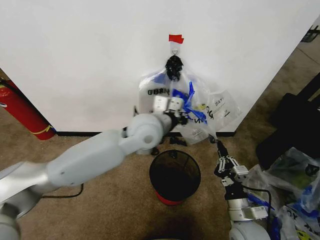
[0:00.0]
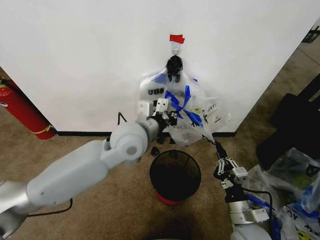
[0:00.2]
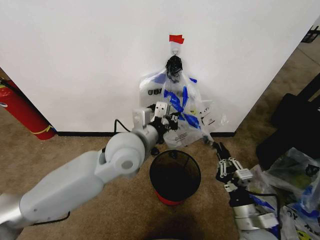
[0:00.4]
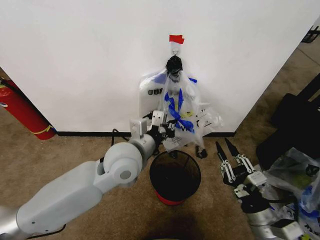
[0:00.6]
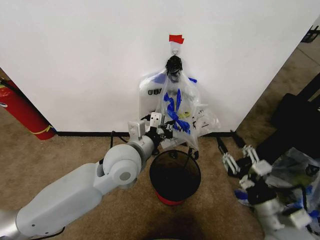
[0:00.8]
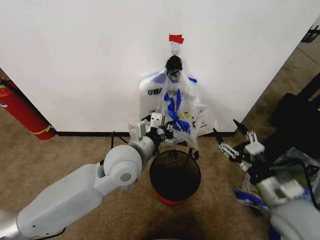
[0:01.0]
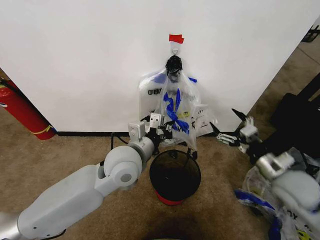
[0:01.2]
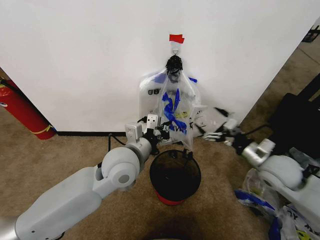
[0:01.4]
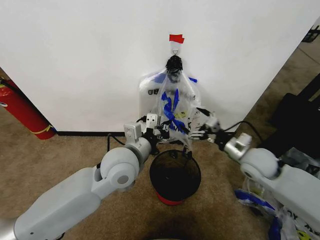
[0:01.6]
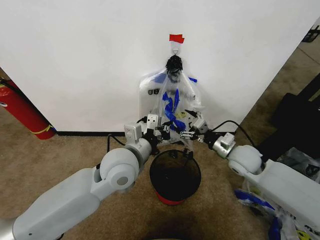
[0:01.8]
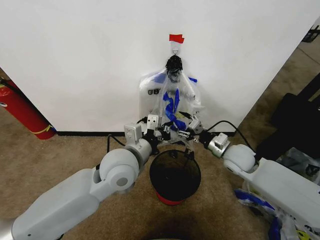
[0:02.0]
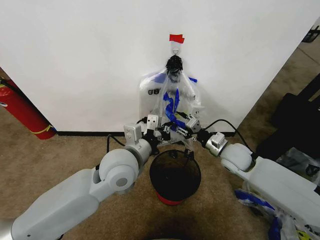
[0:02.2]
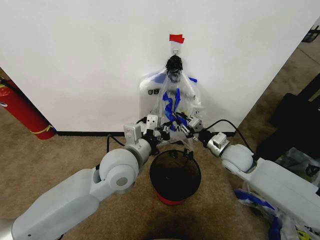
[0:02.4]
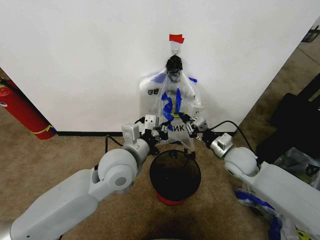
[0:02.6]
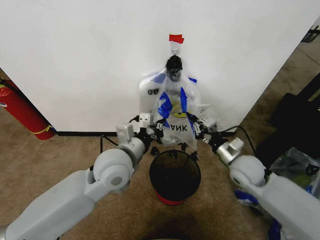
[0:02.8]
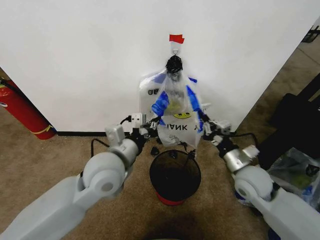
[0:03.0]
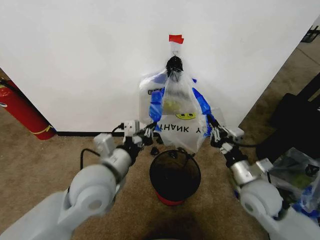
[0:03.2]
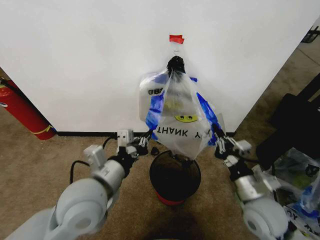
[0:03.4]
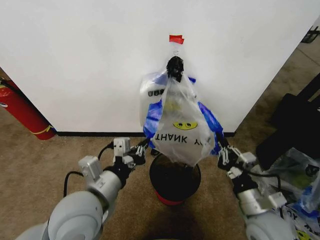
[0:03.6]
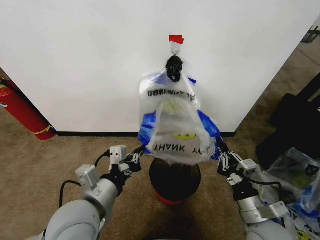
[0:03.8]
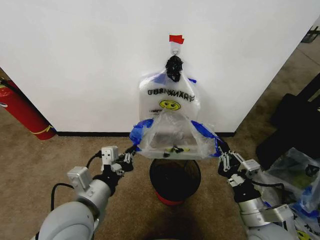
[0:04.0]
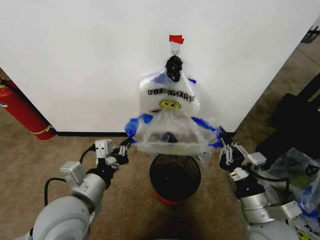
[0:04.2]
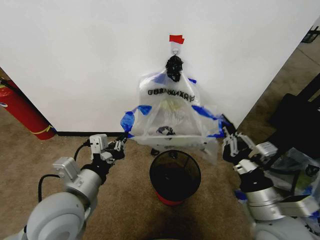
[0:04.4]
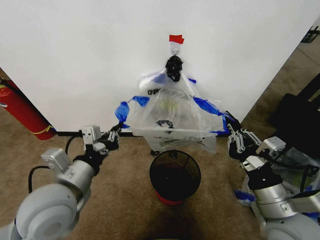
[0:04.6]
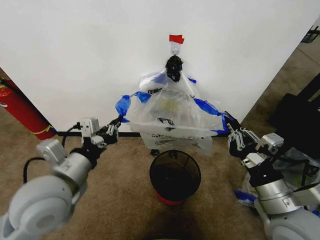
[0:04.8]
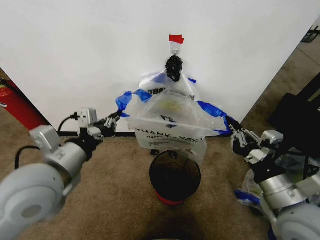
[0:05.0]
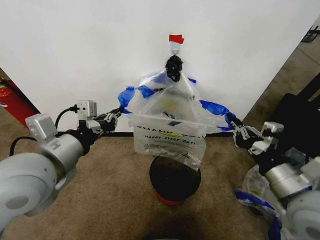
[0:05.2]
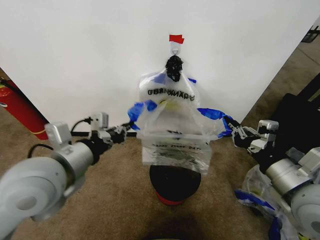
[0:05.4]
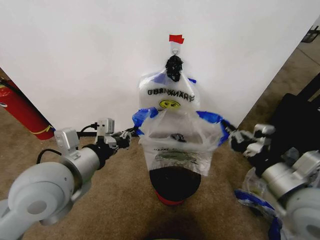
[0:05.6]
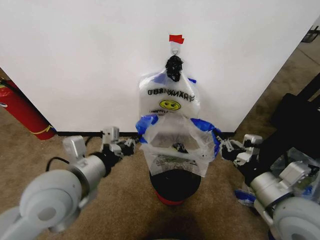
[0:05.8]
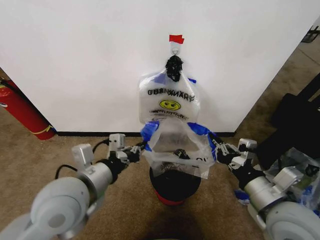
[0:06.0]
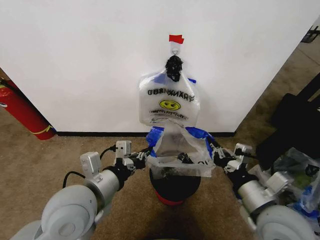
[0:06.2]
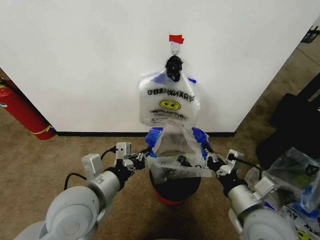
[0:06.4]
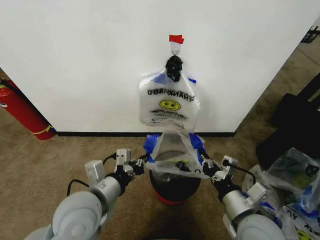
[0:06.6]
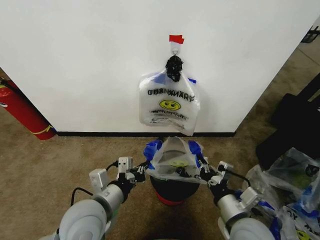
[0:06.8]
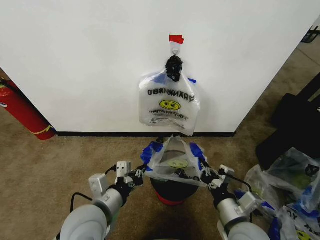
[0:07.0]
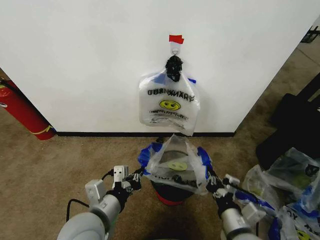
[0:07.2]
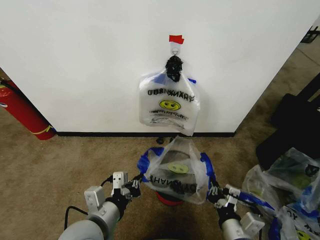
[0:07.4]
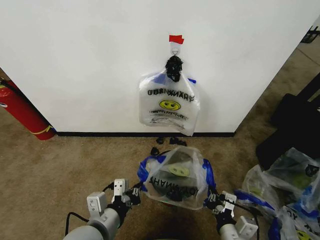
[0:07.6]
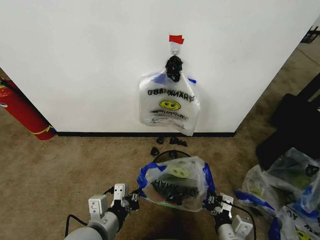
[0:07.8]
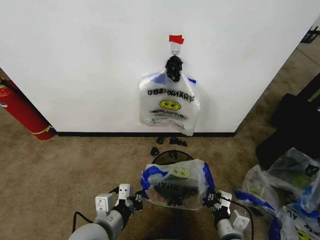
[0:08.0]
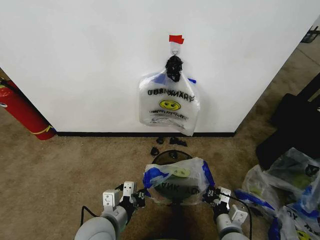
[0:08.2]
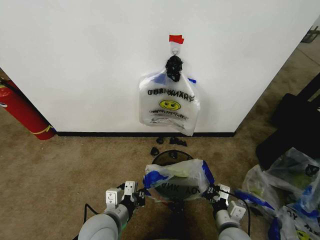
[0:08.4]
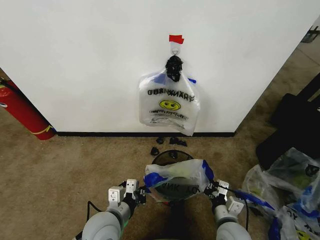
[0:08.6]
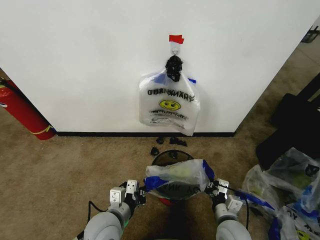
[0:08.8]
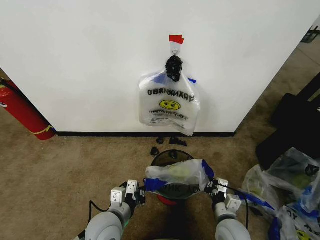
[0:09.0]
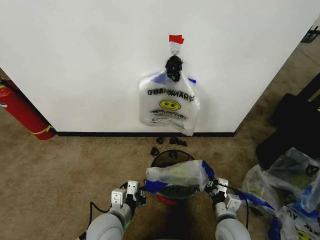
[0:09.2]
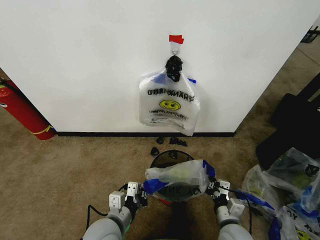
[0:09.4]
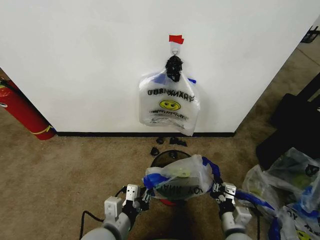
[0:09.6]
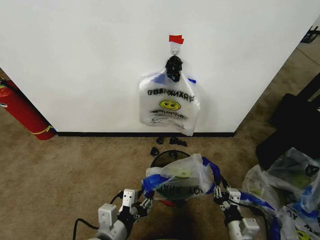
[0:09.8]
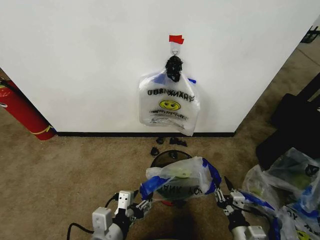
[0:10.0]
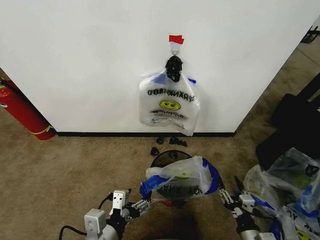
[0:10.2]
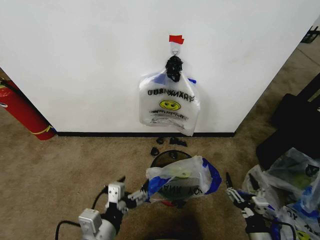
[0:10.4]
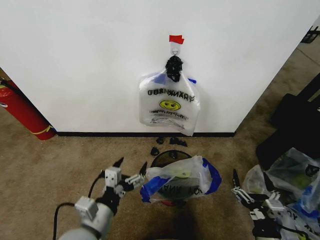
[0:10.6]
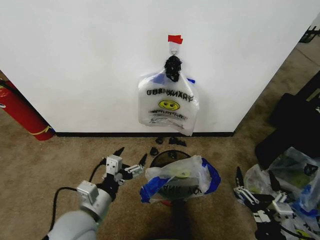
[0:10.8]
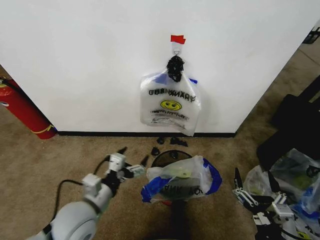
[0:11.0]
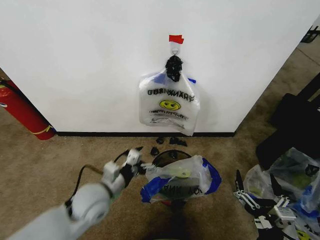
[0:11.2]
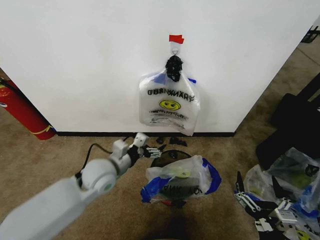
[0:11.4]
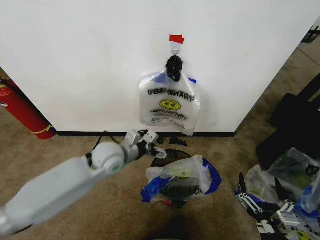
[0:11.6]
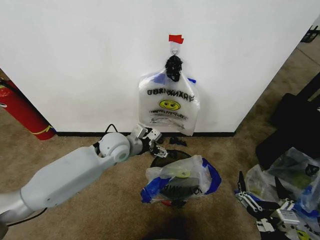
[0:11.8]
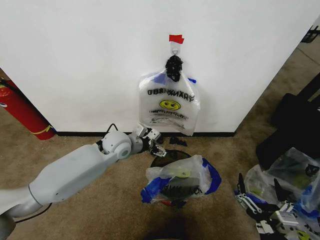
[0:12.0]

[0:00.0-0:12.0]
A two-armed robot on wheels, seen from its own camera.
Task of the whole recording: Pick up the garbage bag from the wall and place it over the trash bin.
0:00.0 to 0:01.6: The left gripper goes some 10 cm backward and downward. The right gripper moves forward and upward, about 20 cm, and opens its fingers.
0:01.6 to 0:03.0: The right gripper goes approximately 5 cm backward, and closes.
0:03.0 to 0:04.4: The left gripper shifts some 10 cm backward and to the left. The right gripper is displaced backward by about 15 cm.
0:04.4 to 0:06.0: The left gripper moves approximately 10 cm upward and comes back.
0:06.0 to 0:07.6: The left gripper shifts approximately 10 cm downward and backward, while the right gripper moves downward, some 15 cm.
0:07.6 to 0:09.0: The left gripper shifts about 10 cm downward and forward. Meanwhile the right gripper shifts some 10 cm forward and downward.
0:09.0 to 0:10.4: The left gripper shifts some 10 cm backward and upward, and opens. The right gripper travels backward and to the right by approximately 10 cm, and opens up.
0:10.4 to 0:12.0: The left gripper heads forward, covering about 35 cm. The right gripper goes some 10 cm upward and backward.

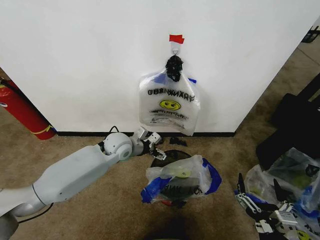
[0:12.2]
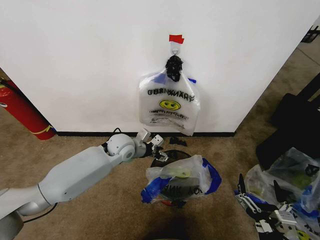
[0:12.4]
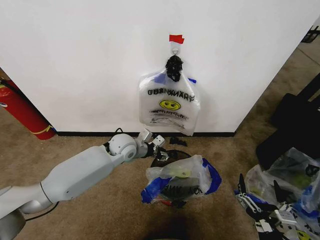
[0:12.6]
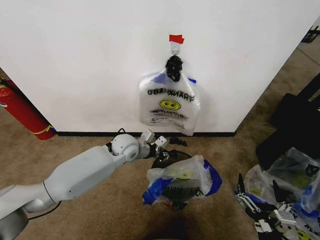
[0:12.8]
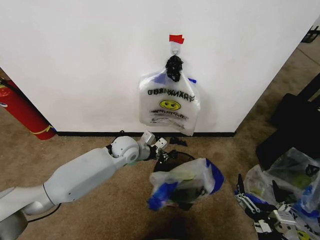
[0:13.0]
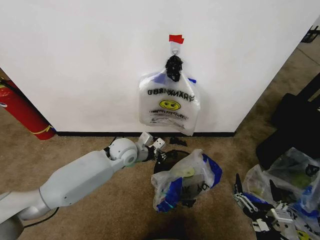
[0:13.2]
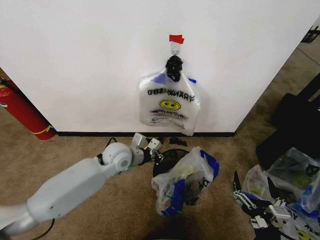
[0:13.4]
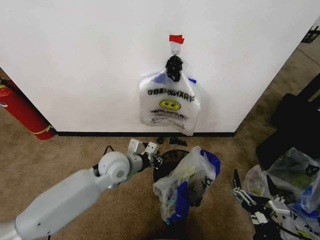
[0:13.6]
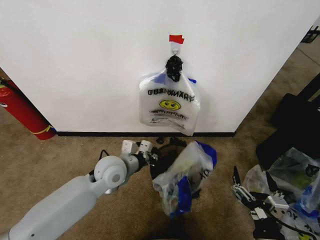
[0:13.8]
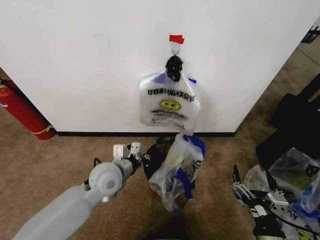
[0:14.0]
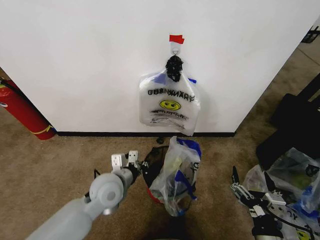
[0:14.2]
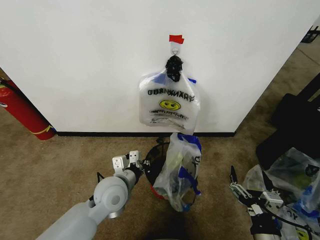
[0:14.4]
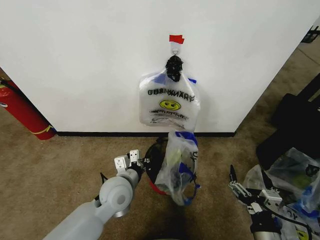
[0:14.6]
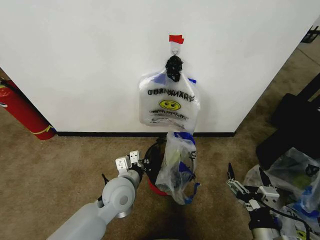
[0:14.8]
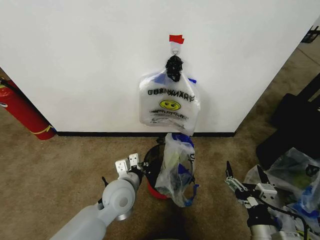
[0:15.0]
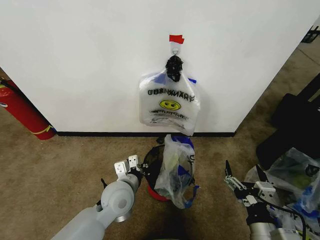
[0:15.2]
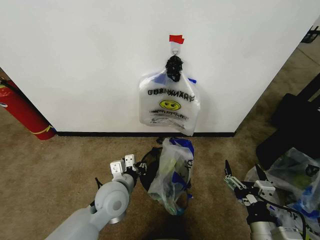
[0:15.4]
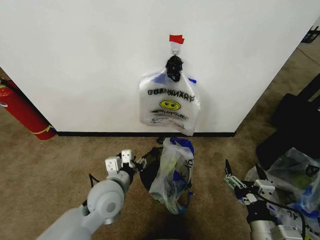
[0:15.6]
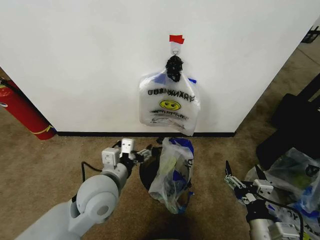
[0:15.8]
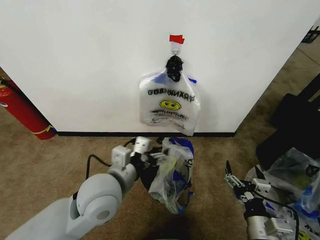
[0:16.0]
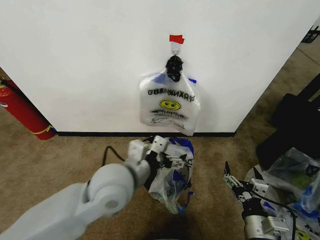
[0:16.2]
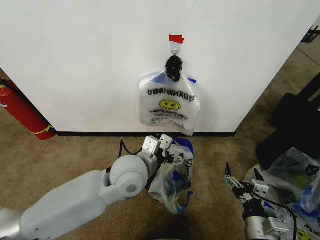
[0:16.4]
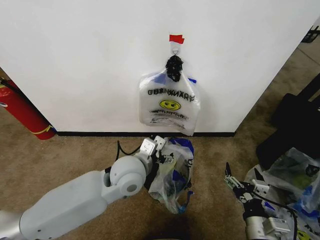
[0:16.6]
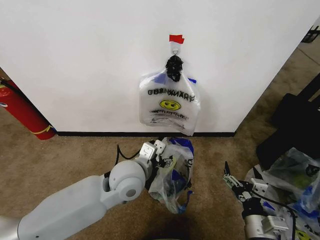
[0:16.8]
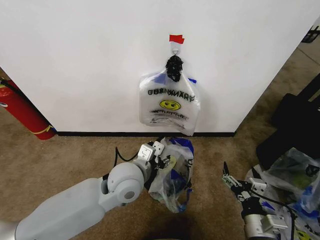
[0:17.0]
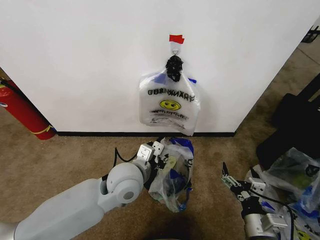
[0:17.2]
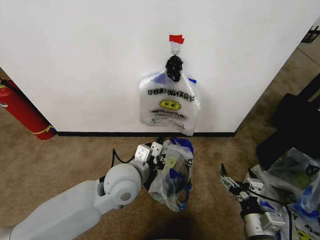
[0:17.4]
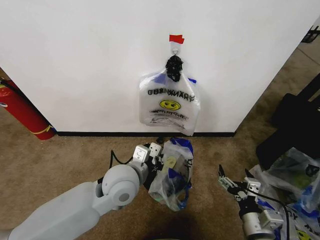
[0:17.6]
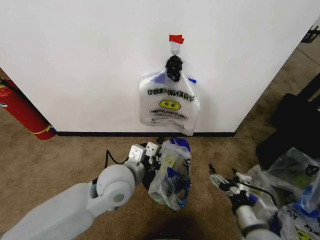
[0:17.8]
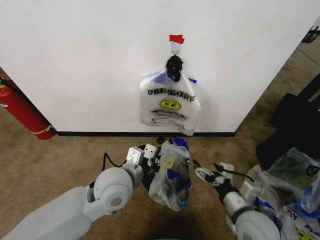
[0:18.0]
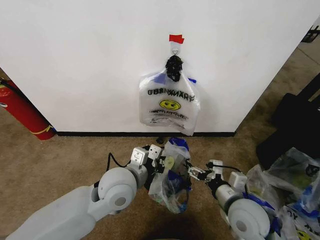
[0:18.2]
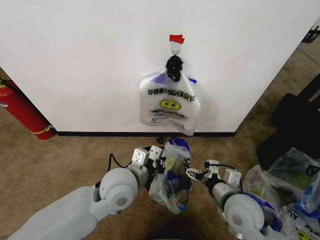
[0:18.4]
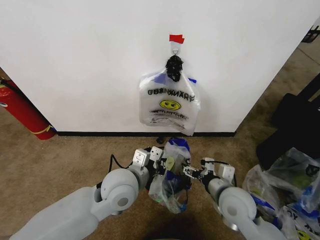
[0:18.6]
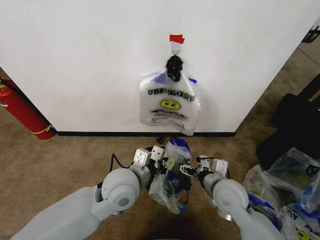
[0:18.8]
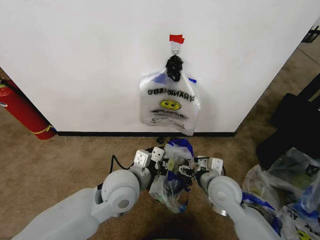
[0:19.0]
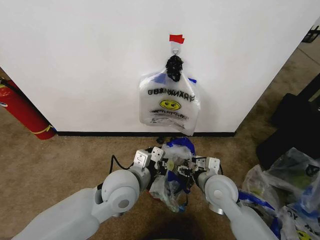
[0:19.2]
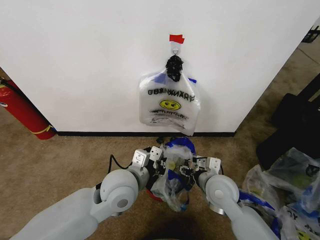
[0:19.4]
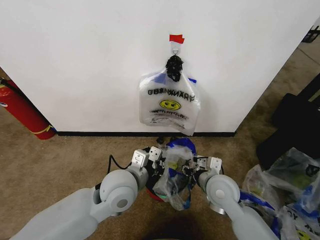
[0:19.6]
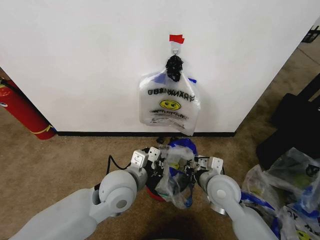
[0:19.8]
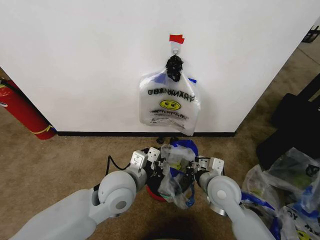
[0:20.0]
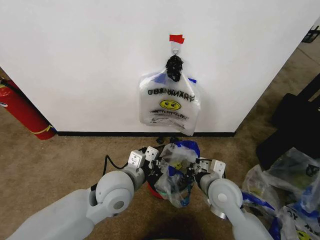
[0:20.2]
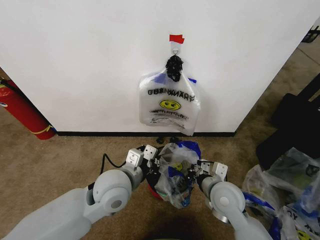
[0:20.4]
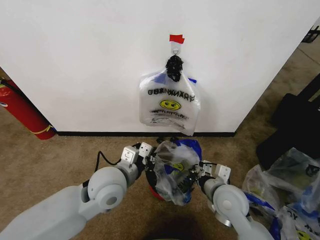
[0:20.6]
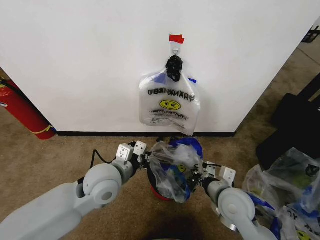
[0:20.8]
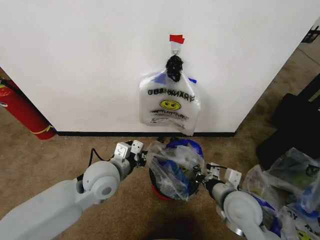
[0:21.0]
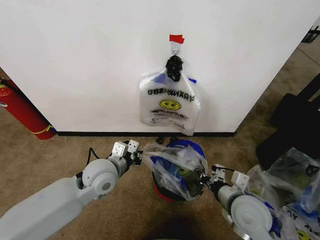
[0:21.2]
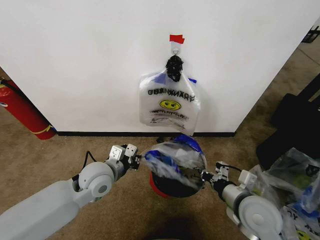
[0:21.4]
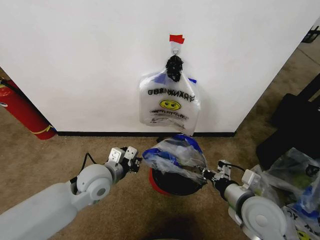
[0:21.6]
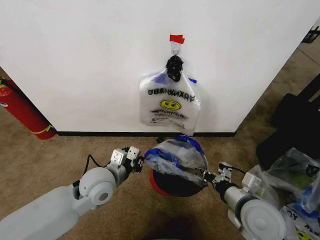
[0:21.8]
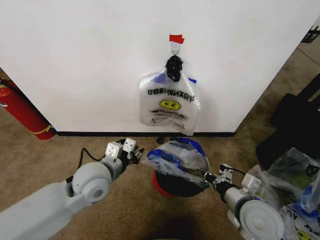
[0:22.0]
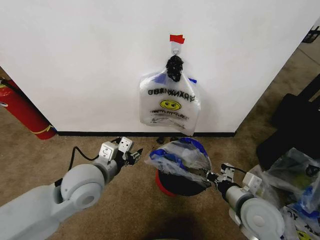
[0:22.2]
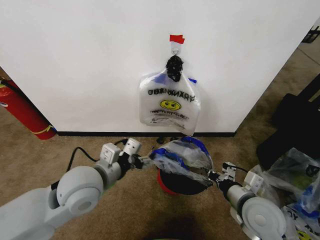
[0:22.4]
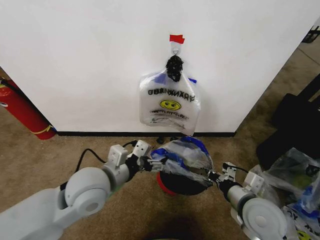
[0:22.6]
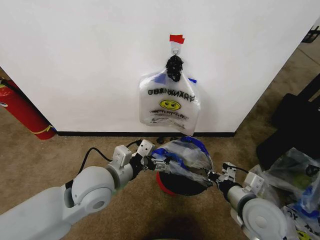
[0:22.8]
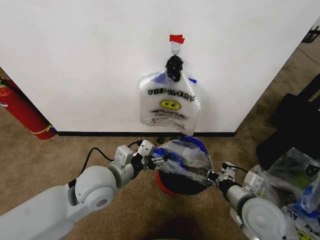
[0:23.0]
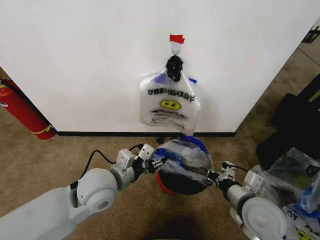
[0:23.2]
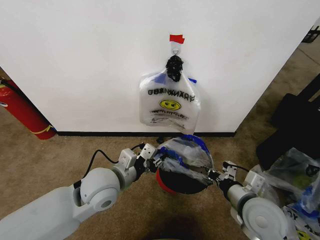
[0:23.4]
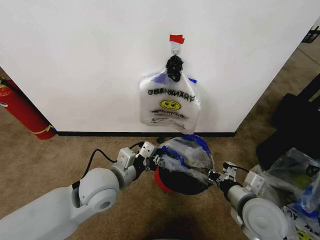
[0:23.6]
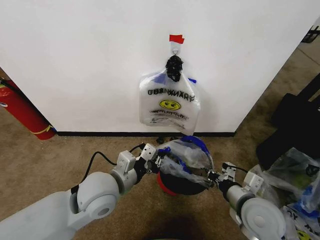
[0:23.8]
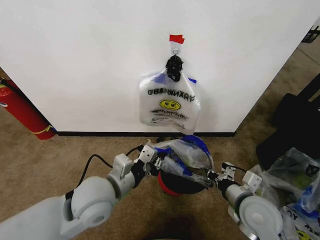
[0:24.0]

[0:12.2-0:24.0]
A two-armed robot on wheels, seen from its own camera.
Task of the whole recording: Pick up the garbage bag from the wall and place it over the trash bin.
0:12.2 to 0:13.6: The left gripper heads backward, covering approximately 10 cm, and closes up.
0:13.6 to 0:15.2: The left gripper travels backward by some 10 cm.
0:15.2 to 0:16.6: The left gripper is displaced upward by approximately 10 cm, and opens up.
0:16.6 to 0:18.2: The right gripper travels forward by some 10 cm. Meanwhile the left gripper closes up.
0:18.2 to 0:19.6: The right gripper goes about 10 cm forward and to the left, and closes its fingers.
0:19.6 to 0:21.0: The right gripper shifts some 5 cm backward, and closes up. The left gripper goes some 5 cm to the left.
0:21.0 to 0:22.6: The left gripper goes about 5 cm backward, and opens.
0:22.6 to 0:24.0: The left gripper closes.
